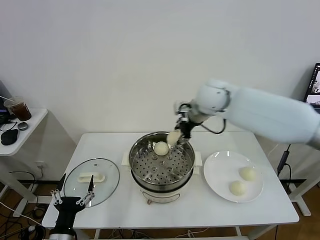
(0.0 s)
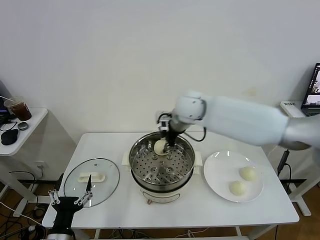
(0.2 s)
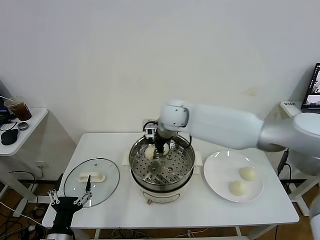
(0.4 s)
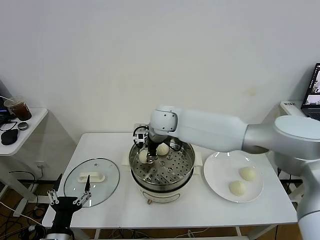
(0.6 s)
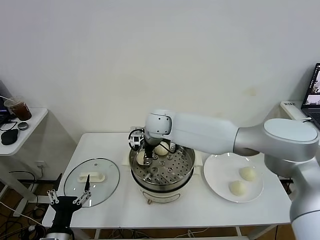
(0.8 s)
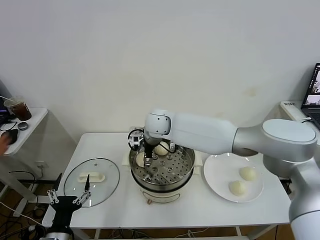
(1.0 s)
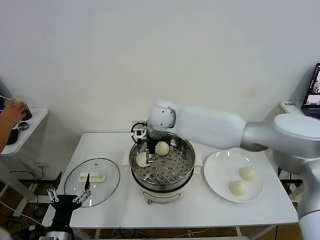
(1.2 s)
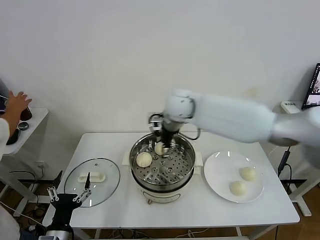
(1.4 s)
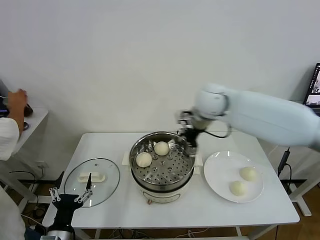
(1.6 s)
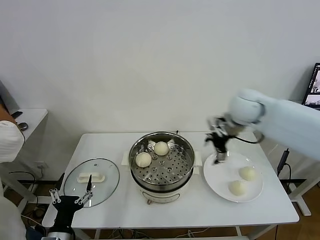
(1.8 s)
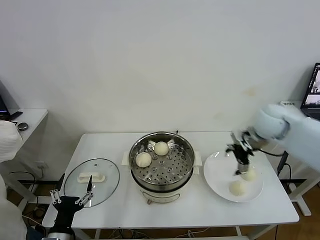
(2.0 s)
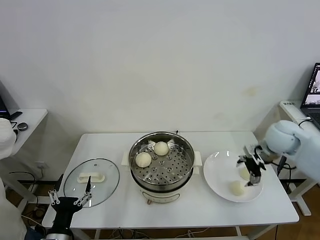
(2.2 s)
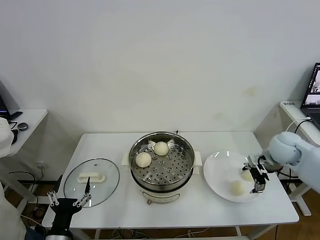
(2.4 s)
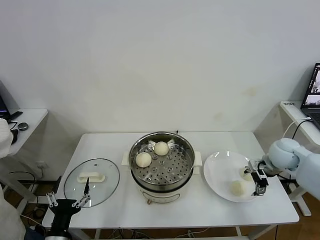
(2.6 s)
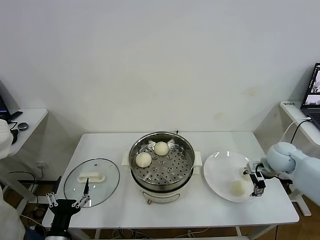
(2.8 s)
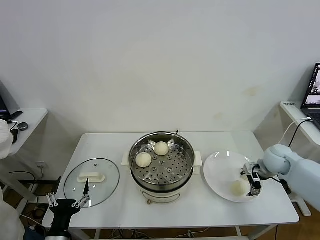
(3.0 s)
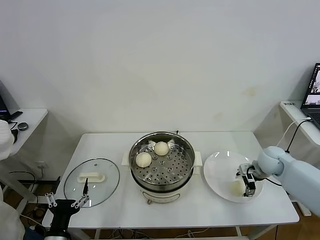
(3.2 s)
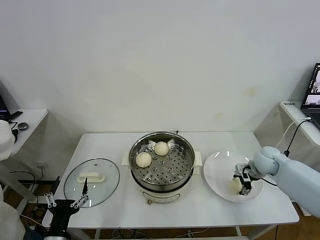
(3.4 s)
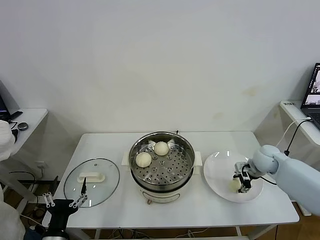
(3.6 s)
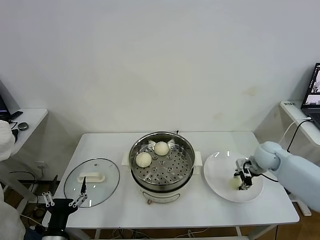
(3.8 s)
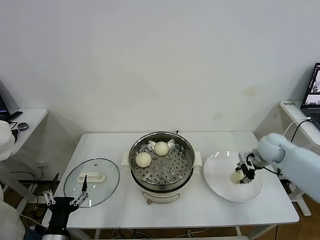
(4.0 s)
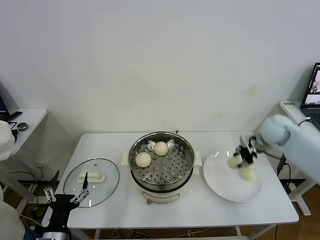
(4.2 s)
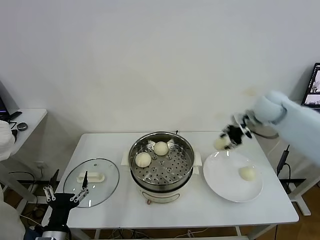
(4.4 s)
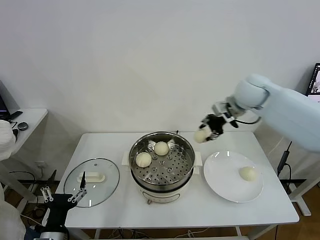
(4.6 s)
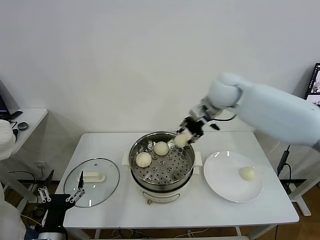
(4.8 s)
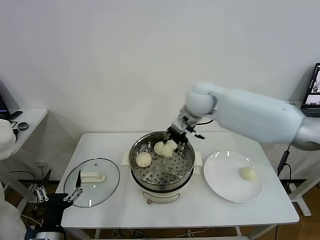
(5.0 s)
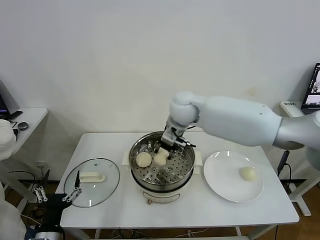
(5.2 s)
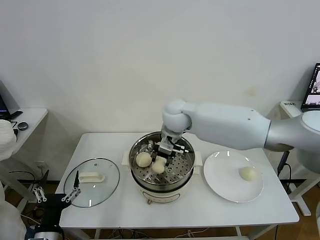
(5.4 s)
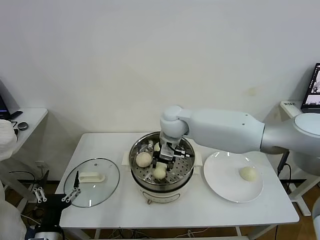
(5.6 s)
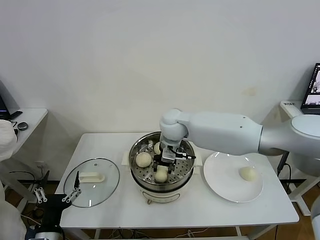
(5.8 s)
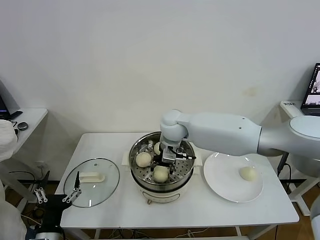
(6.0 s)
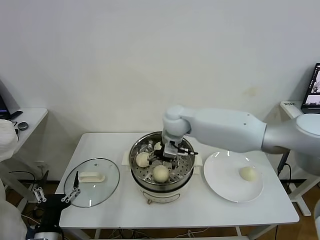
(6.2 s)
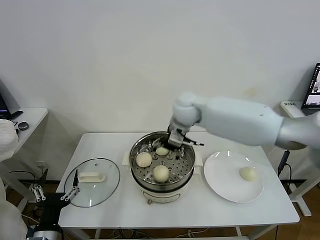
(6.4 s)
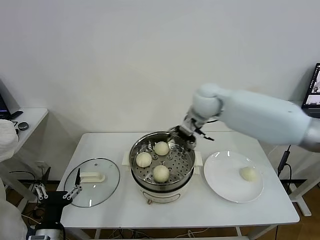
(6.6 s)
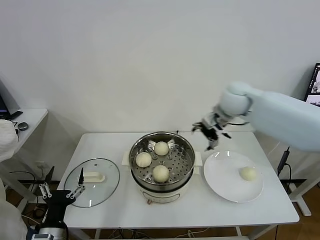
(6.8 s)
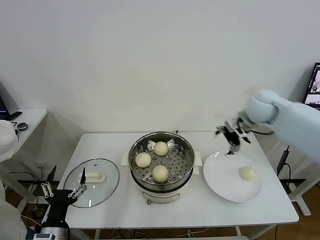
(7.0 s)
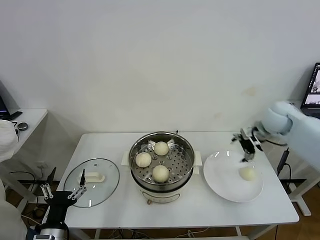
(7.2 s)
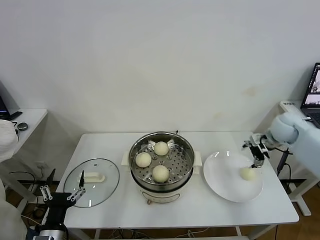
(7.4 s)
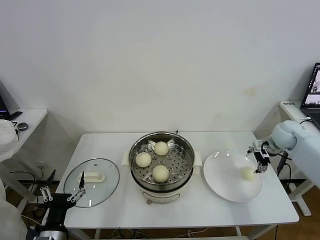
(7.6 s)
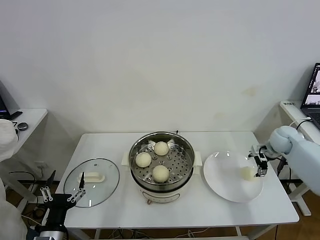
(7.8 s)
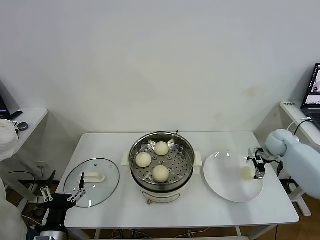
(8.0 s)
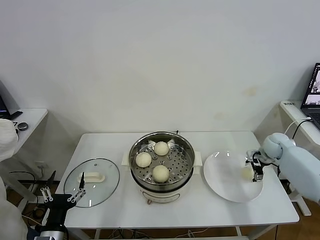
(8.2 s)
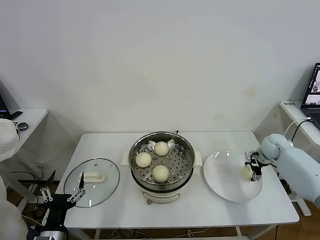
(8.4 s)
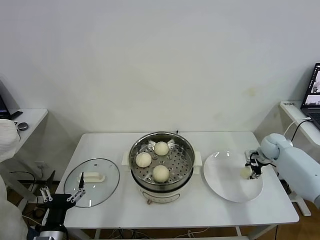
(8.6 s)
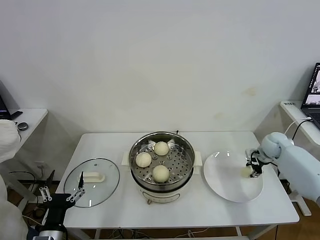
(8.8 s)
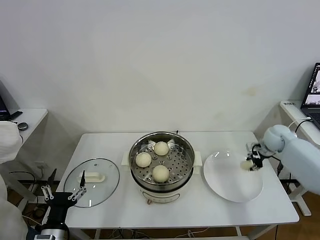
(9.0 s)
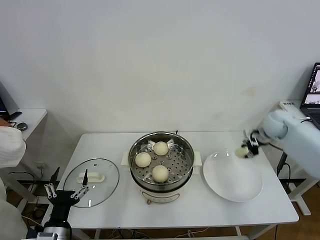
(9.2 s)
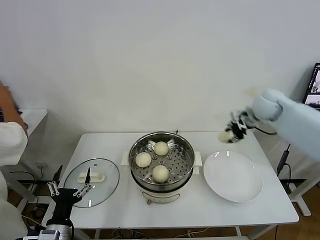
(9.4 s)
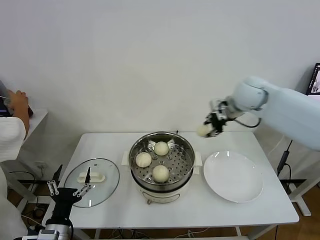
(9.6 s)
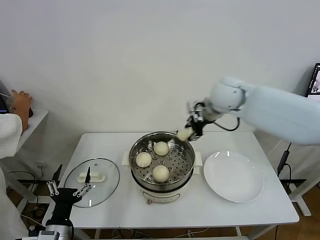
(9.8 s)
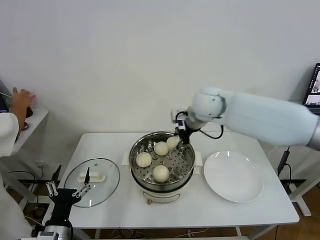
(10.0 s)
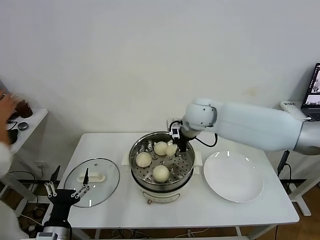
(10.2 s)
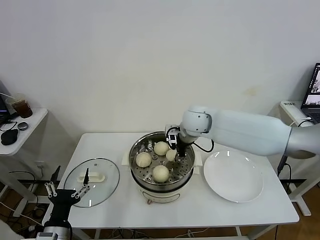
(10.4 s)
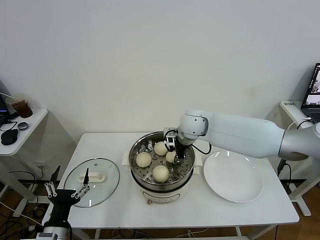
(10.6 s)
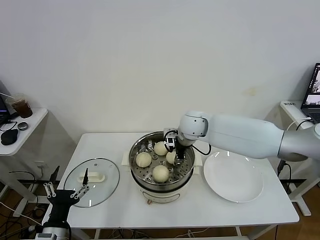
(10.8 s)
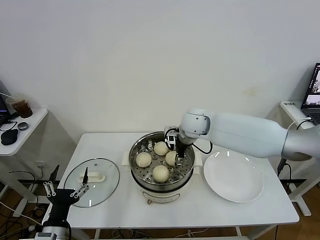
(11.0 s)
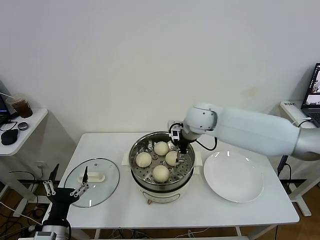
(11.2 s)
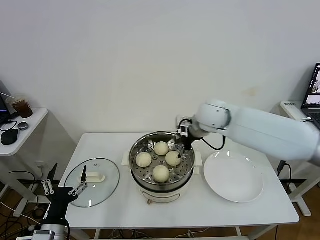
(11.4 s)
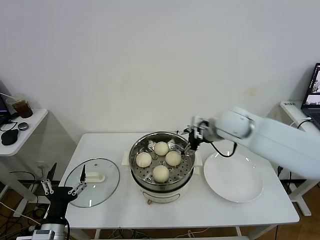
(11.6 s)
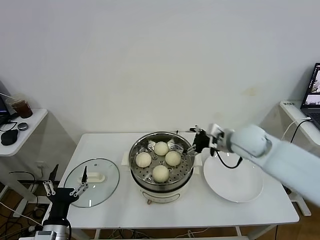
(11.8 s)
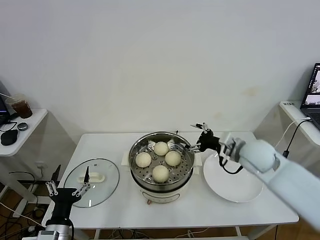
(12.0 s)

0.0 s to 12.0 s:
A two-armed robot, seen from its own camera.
Task of the whole recording: take steamed baozi put them in steamer.
Step, 0.0 to 1.2 s: Place the baozi on the steamer with right gripper.
Step, 1.4 to 3.6 s: Grasp the baozi in the plate with right gripper.
Step, 3.8 to 6.2 s: Place the baozi on the steamer with right gripper.
Step, 6.4 to 8.6 s: Grasp the baozi in the plate with right gripper.
Step, 8.8 to 11.2 s: Place the baozi on the steamer with right gripper.
0.0 to 1.6 s: The right gripper is displaced to the right by some 10 cm, and opens.
1.6 to 3.0 s: The right gripper heads downward and to the right, covering roughly 30 cm.
3.0 to 4.4 s: The right gripper heads upward and to the left, covering some 25 cm, and closes its fingers.
4.4 to 6.0 s: The right gripper is displaced to the left by roughly 25 cm, and opens its fingers.
6.0 to 7.6 s: The right gripper goes roughly 40 cm to the right.
7.6 to 9.0 s: The right gripper closes.
9.0 to 10.4 s: The right gripper goes roughly 30 cm to the left.
10.4 to 12.0 s: The right gripper moves to the right and backward, approximately 20 cm, and opens up.

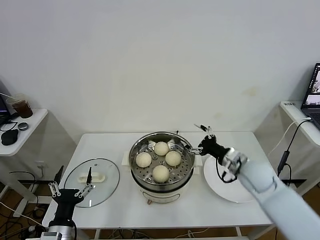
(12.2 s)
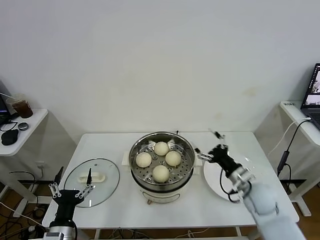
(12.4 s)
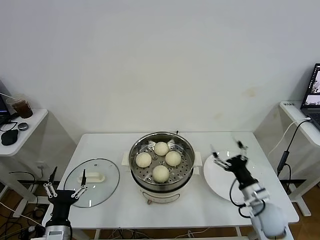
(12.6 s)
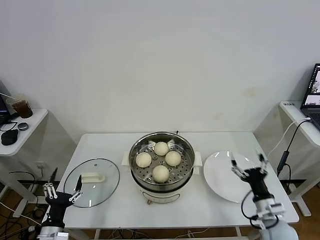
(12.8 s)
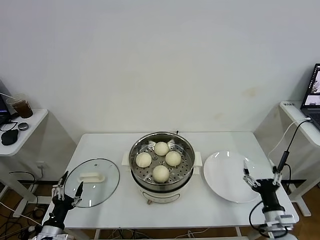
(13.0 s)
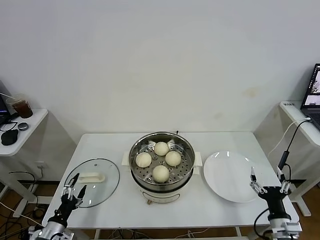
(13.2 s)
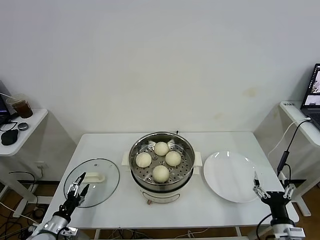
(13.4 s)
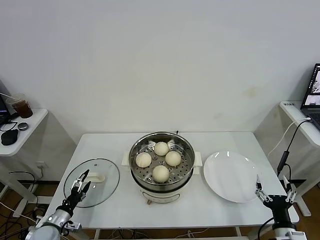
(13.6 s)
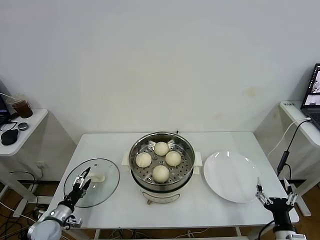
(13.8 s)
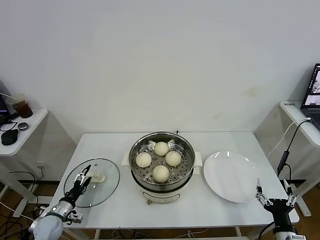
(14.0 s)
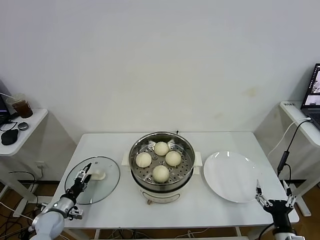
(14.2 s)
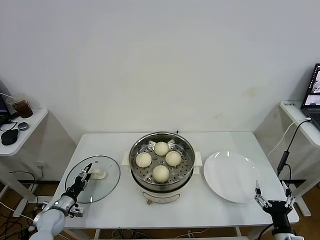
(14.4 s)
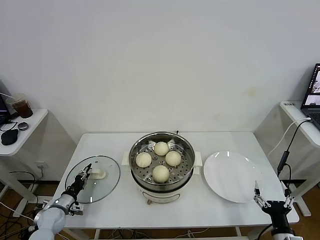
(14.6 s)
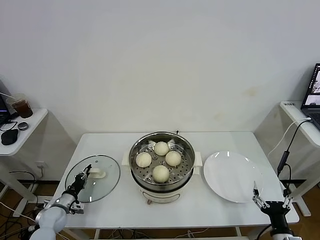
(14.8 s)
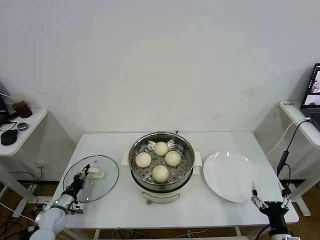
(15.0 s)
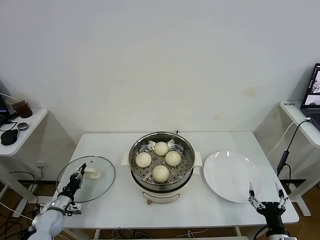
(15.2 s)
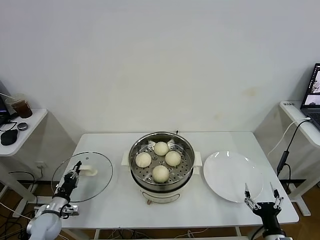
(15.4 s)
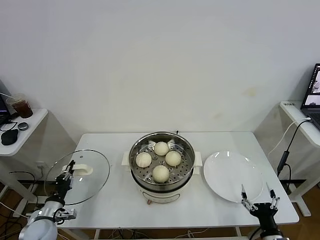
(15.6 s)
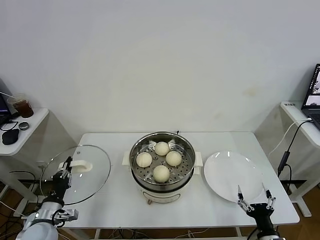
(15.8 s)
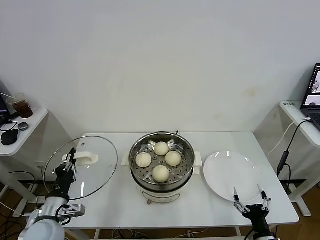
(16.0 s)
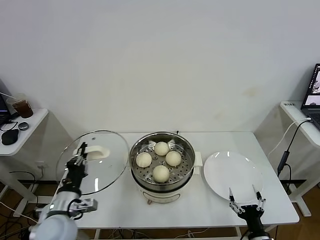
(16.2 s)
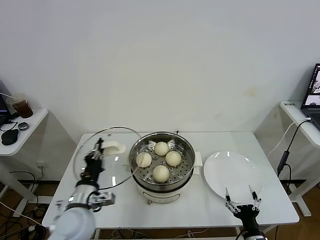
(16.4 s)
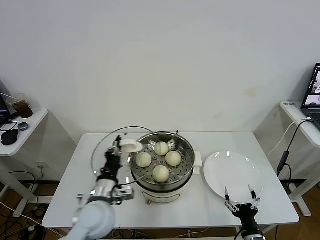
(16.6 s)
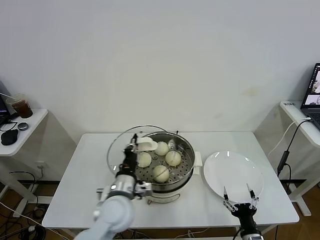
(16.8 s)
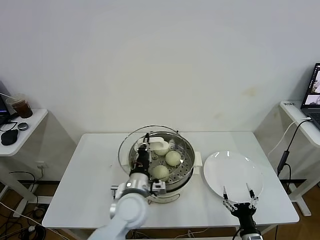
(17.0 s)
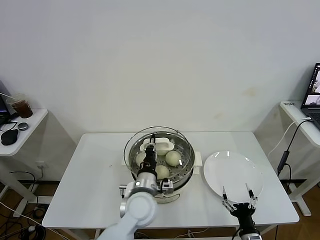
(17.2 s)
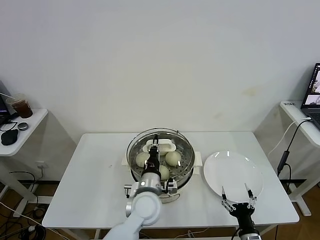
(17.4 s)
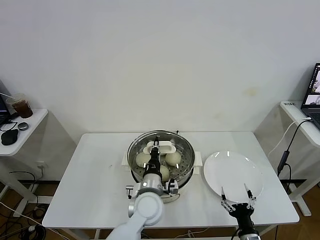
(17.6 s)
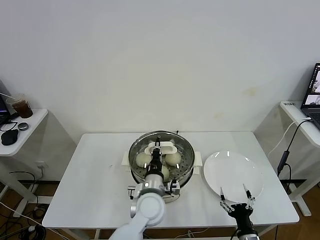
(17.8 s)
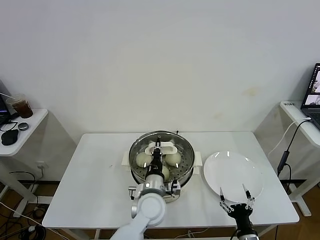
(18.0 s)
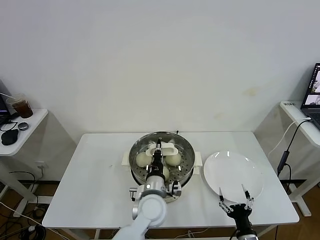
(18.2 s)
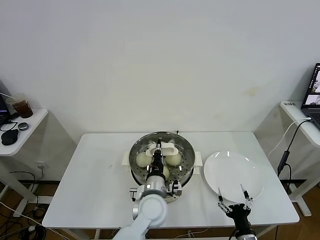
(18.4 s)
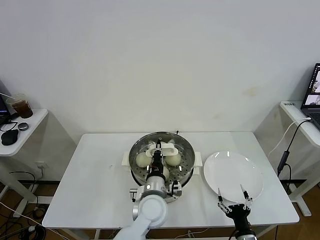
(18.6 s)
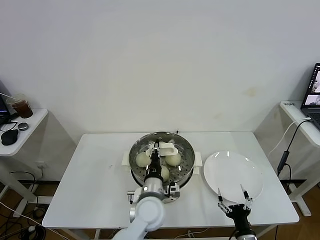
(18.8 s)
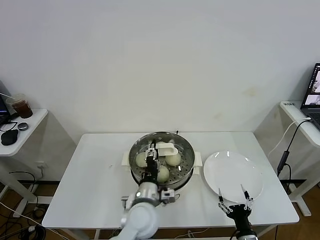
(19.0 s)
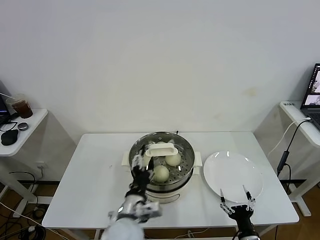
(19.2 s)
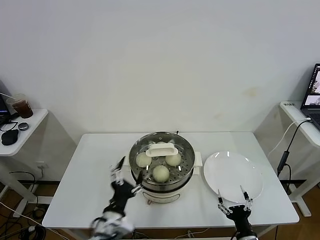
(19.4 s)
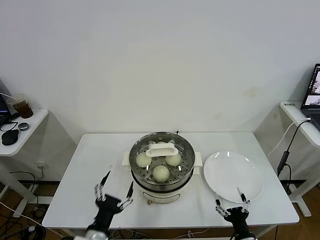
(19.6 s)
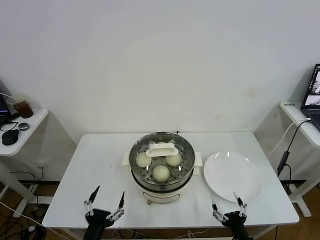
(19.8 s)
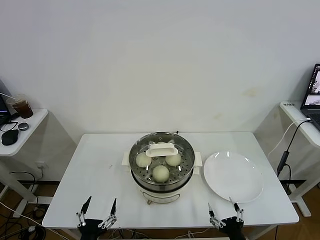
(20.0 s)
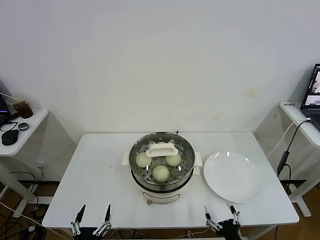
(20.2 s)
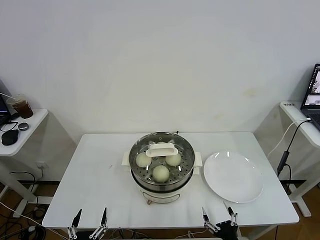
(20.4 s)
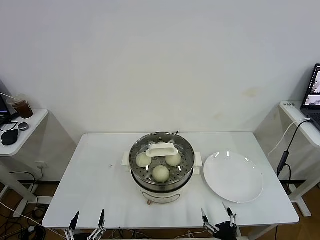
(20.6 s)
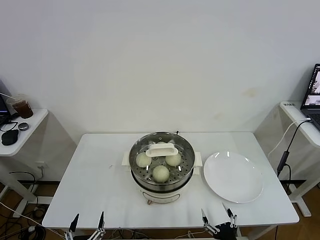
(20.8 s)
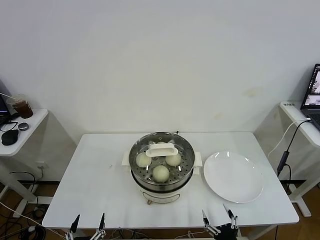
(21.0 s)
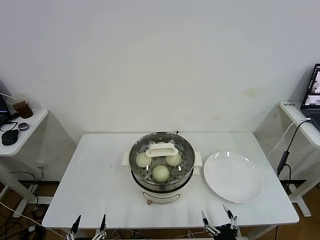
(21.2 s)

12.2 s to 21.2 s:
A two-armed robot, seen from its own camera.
Task of the whole recording: take steamed baozi put them in steamer.
Step, 12.2 to 15.0 s: Grasp the pot lid with left gripper.
Step, 15.4 to 19.2 s: Place the pot lid on the steamer with left gripper.
12.2 to 13.8 s: The left gripper travels to the left, downward and forward by some 20 cm. Meanwhile the right gripper is displaced backward and downward by about 25 cm.
13.8 to 15.2 s: The left gripper closes up.
15.2 to 16.6 s: The right gripper heads to the left, covering about 5 cm, while the left gripper moves to the right and upward, approximately 30 cm.
16.6 to 18.2 s: The left gripper heads to the right, covering roughly 15 cm.
18.2 to 19.8 s: The left gripper moves backward and to the left, some 25 cm, and opens its fingers.
19.8 to 21.2 s: The left gripper is displaced downward and backward by some 10 cm.

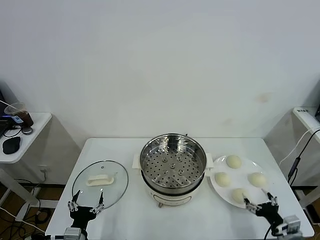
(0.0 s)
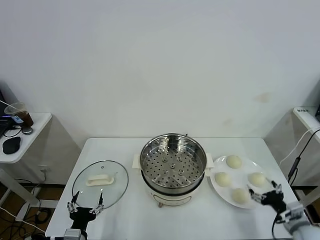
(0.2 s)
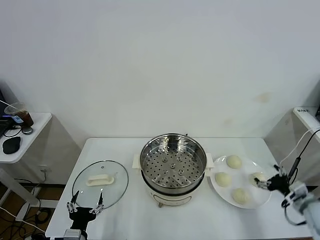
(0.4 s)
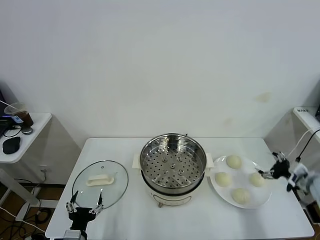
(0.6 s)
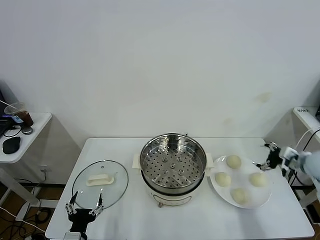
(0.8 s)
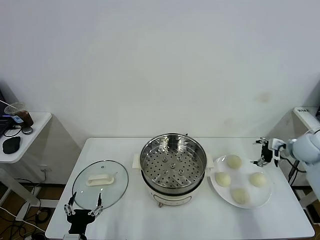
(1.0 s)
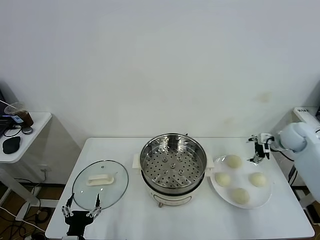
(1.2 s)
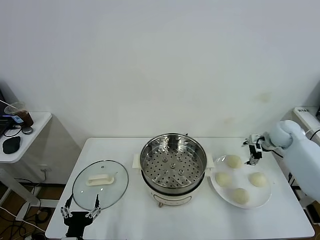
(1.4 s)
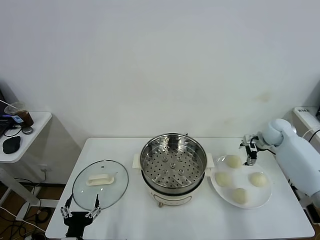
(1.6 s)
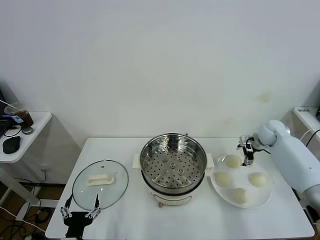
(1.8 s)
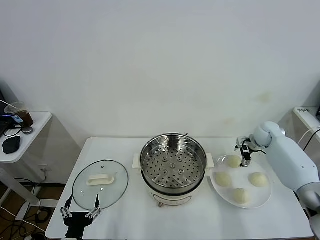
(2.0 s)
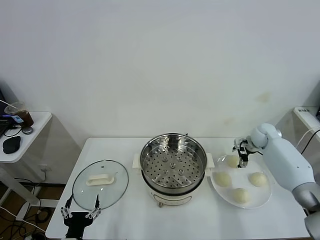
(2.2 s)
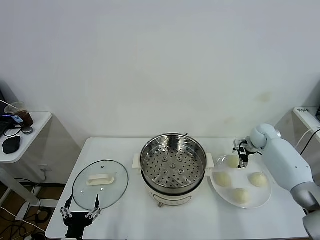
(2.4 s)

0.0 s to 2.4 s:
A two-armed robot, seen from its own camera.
Task of the whole recording: take steamed baozi put them in steamer.
1.2 to 2.4 s: The right gripper heads downward and forward, covering about 10 cm.
